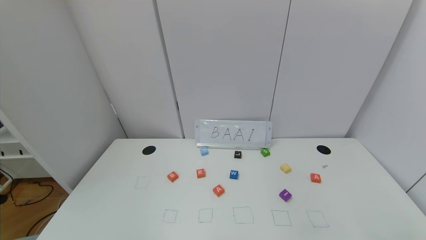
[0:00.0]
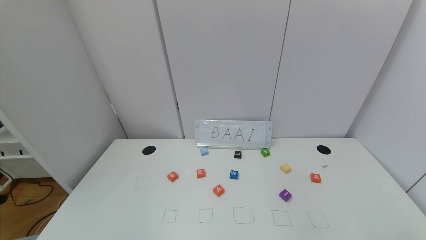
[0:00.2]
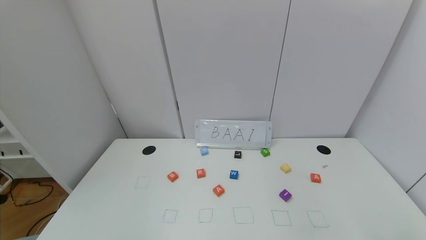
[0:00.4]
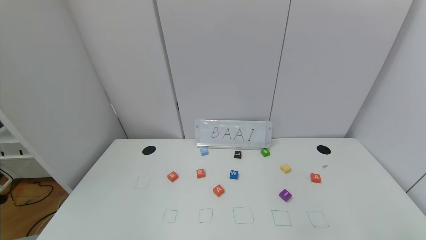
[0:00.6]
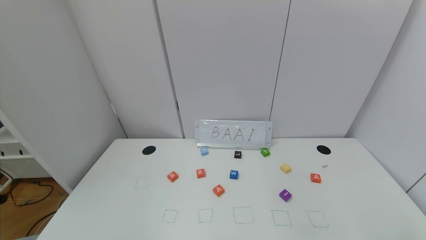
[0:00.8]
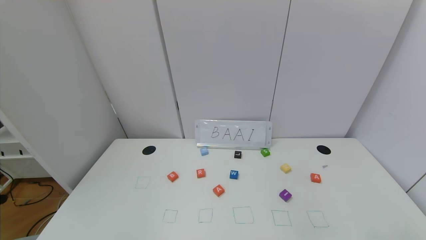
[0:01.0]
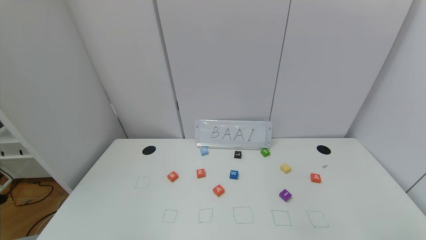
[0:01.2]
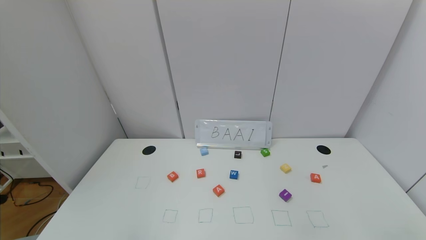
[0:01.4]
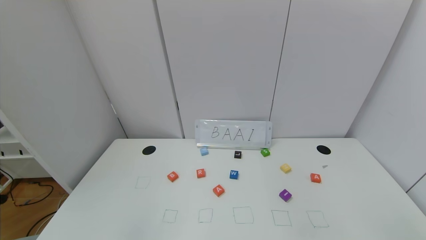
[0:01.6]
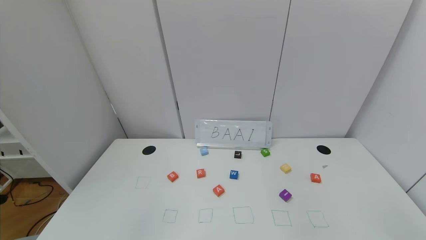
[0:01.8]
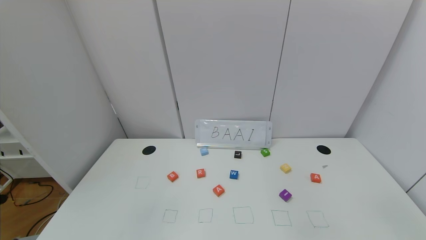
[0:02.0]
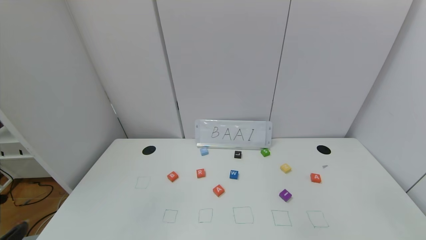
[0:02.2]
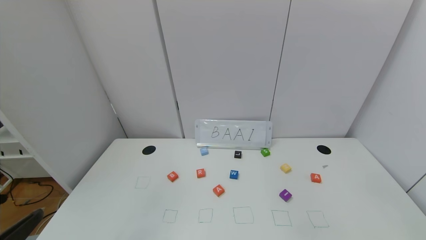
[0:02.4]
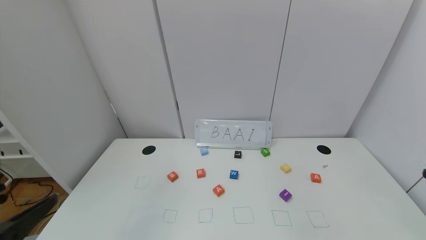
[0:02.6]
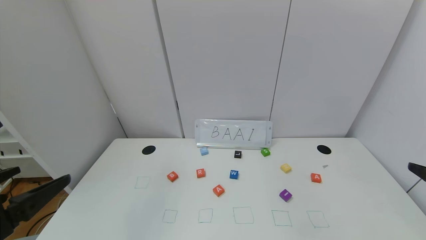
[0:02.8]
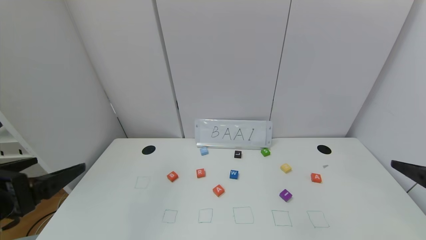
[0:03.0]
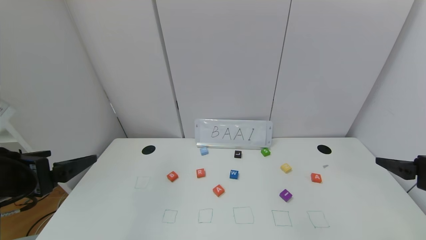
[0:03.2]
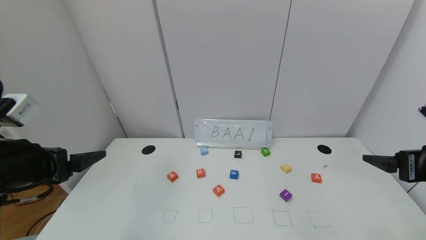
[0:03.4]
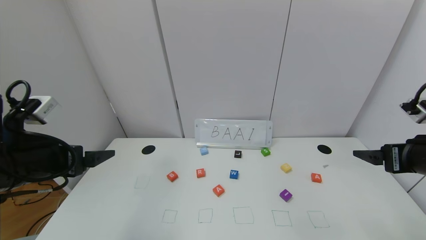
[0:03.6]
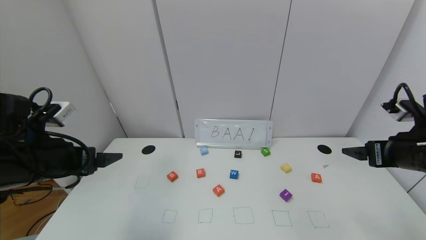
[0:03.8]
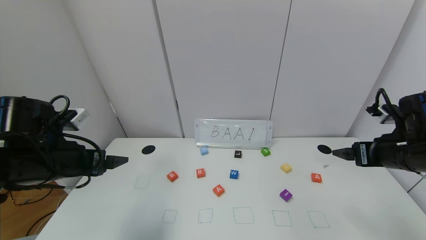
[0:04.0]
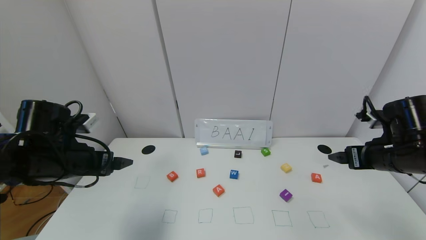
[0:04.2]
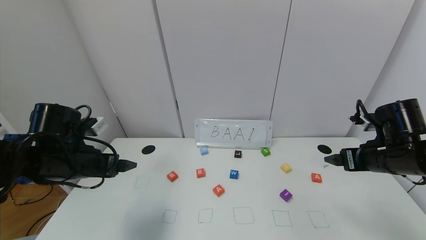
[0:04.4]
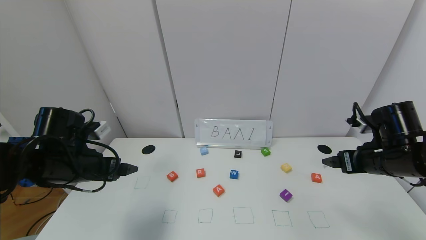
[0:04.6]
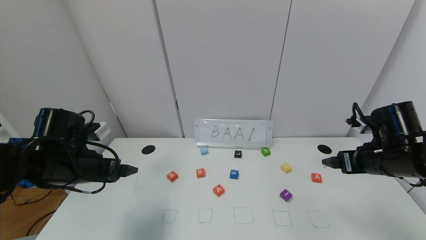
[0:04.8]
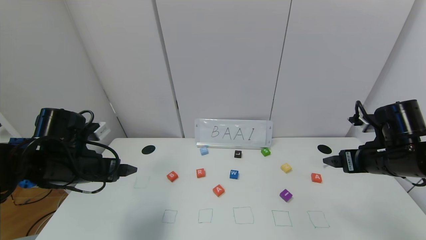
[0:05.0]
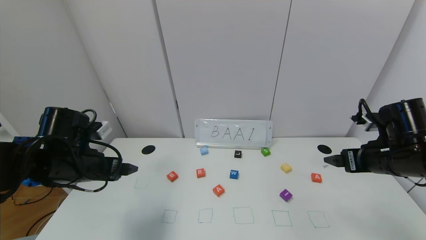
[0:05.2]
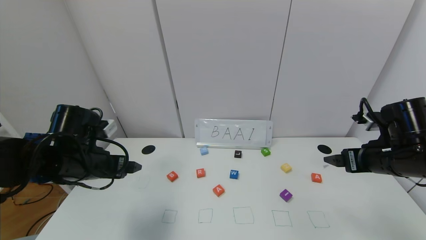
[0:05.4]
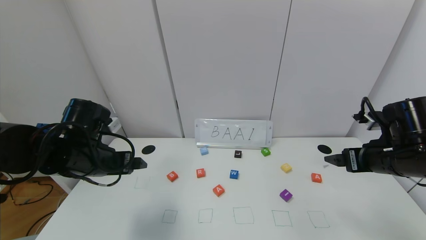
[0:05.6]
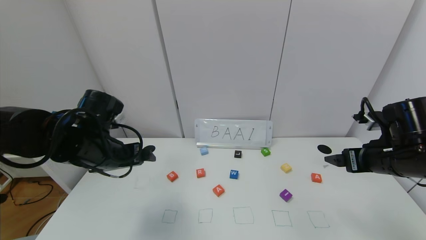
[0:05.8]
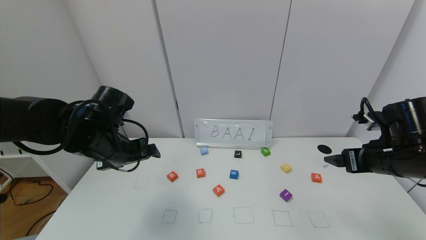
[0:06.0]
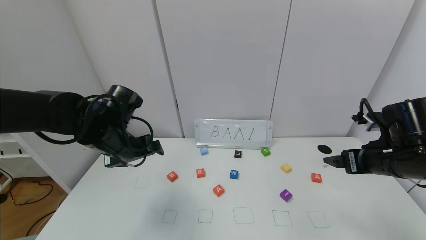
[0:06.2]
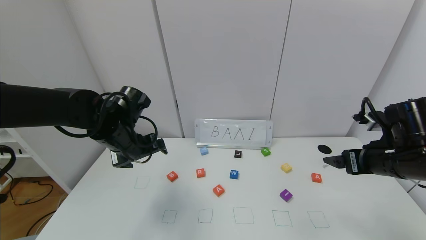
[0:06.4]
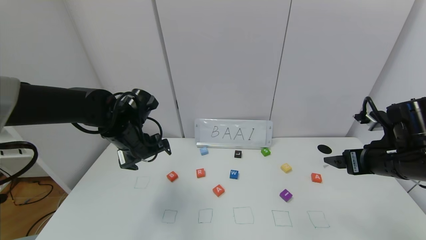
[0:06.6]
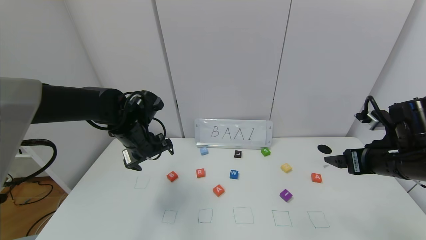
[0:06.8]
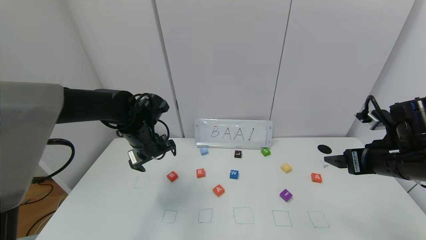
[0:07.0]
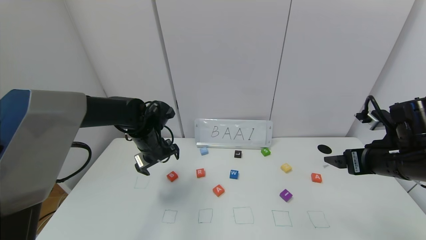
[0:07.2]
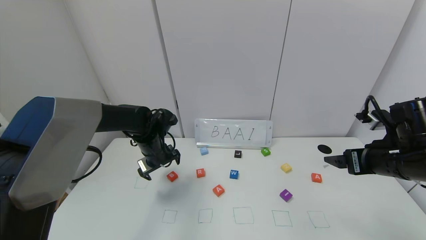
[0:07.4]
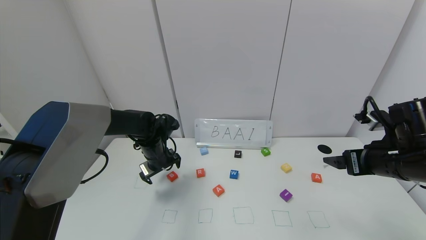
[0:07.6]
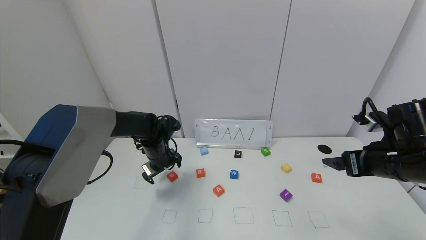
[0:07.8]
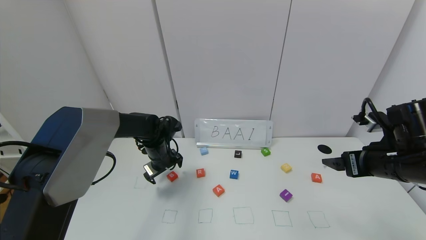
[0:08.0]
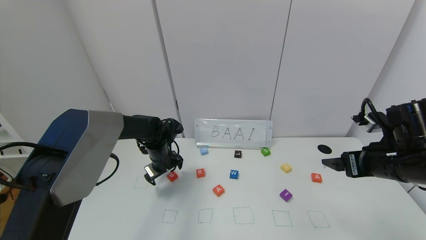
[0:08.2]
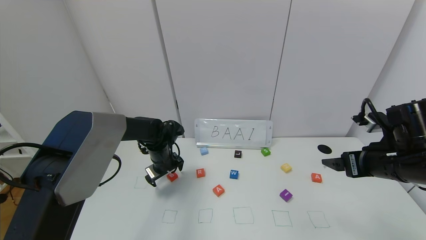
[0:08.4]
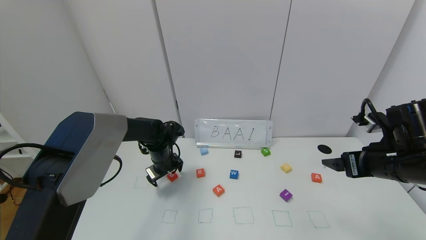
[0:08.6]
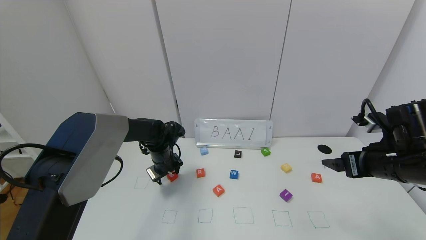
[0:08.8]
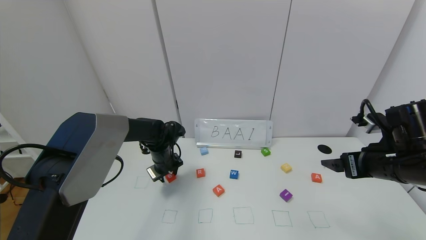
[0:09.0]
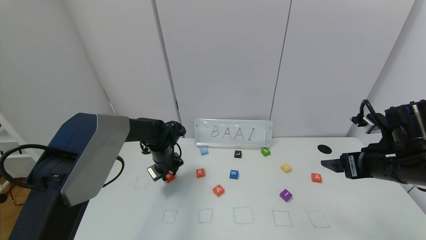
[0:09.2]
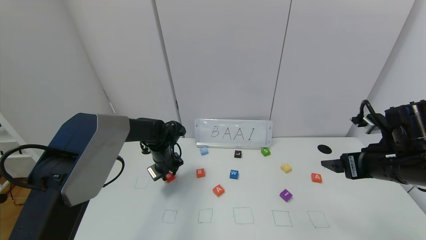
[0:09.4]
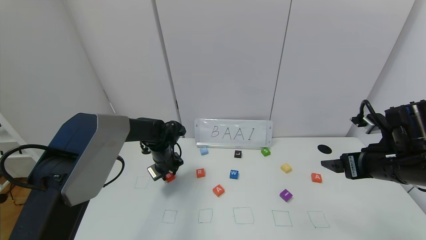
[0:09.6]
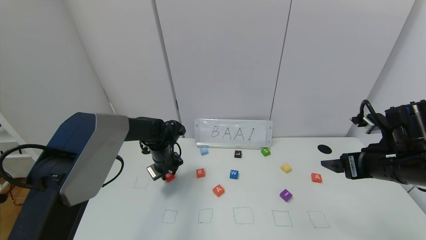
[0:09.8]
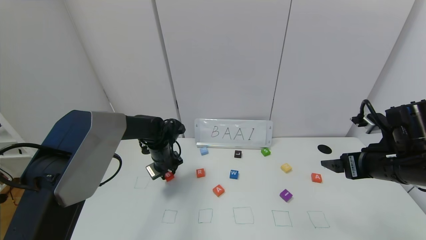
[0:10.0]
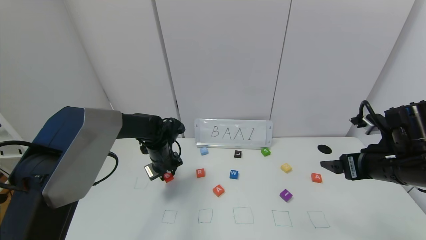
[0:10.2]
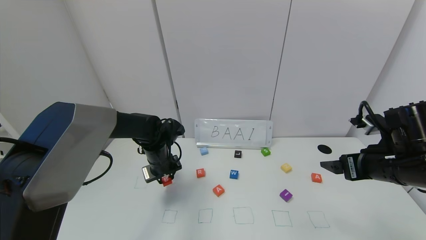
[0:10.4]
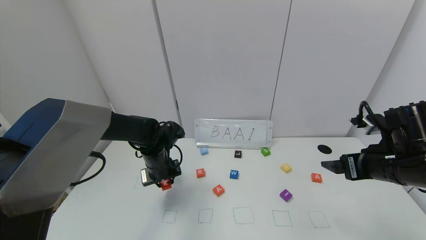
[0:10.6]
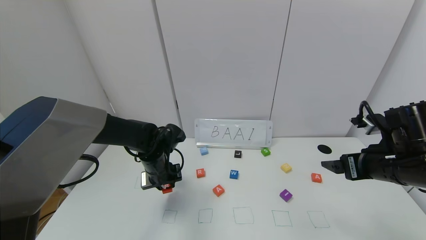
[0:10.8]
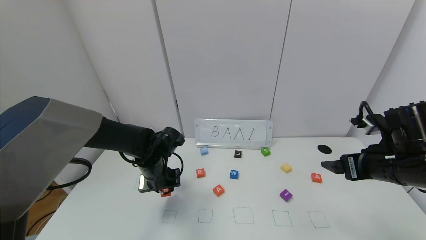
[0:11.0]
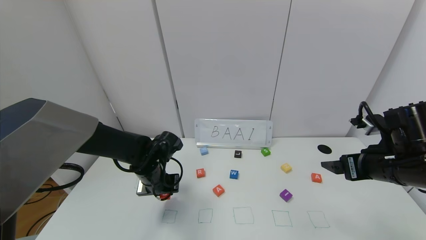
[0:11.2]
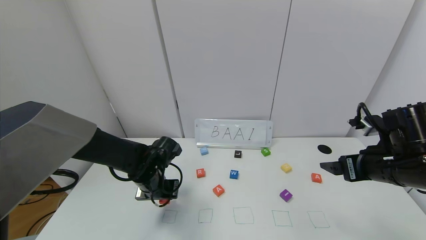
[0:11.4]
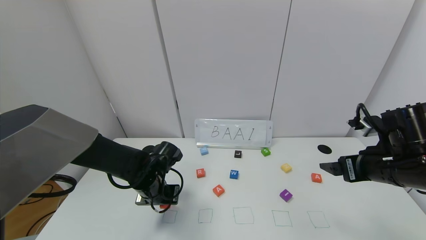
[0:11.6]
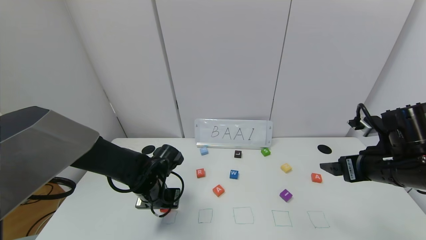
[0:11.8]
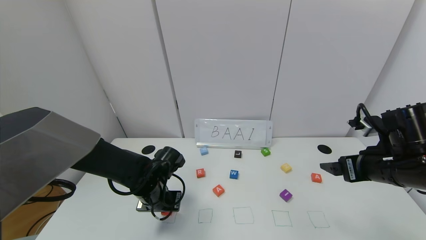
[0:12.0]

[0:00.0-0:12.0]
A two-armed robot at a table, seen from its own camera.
Task of the whole recording: use the gripper to find blocks with the letters b, a, a, and i on the table and arrange them into BAAI, then find r and N and turn the arranged baai into brian.
0:01.6 to 0:03.0: The left gripper heads forward and upward, covering about 15 cm.
0:03.0 to 0:04.4: The left gripper moves forward and downward, roughly 15 cm. The right gripper travels forward by roughly 15 cm.
0:04.4 to 0:06.0: The left gripper is displaced to the right by roughly 5 cm.
0:06.0 to 0:07.6: The left gripper moves forward and downward, approximately 15 cm.
0:07.6 to 0:09.0: The left gripper closes up.
0:09.0 to 0:10.4: The grippers stay close to where they were, moving slightly.
0:10.4 to 0:12.0: The left gripper moves backward, about 10 cm.

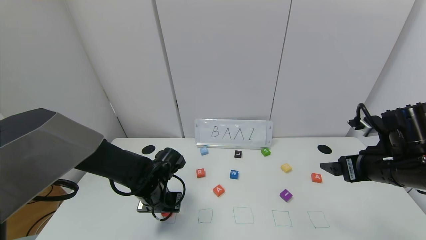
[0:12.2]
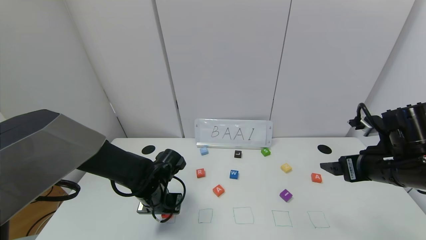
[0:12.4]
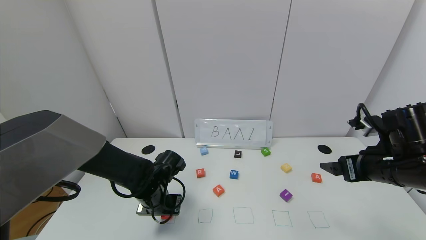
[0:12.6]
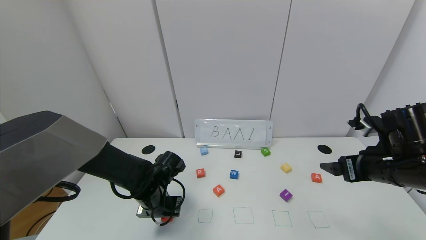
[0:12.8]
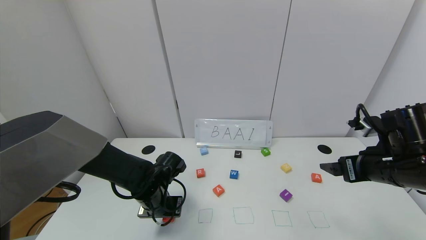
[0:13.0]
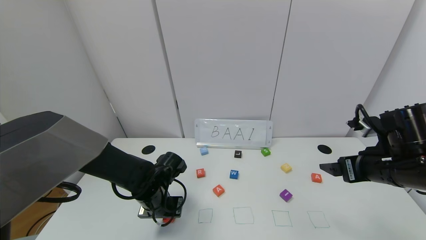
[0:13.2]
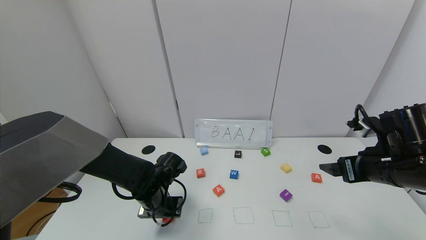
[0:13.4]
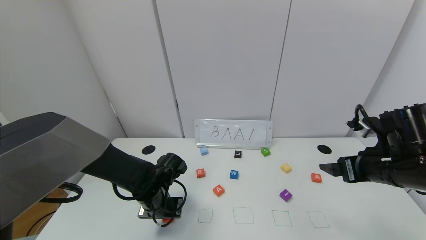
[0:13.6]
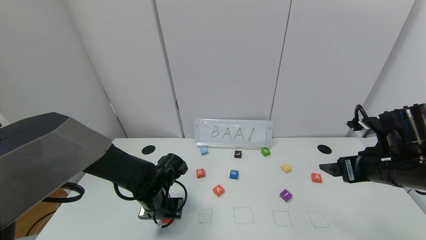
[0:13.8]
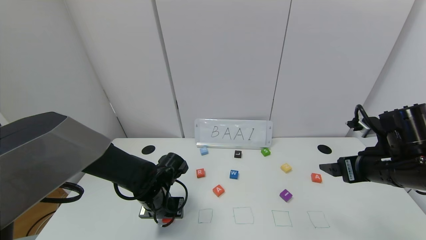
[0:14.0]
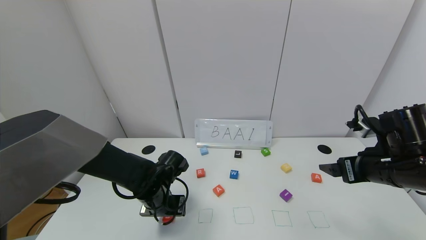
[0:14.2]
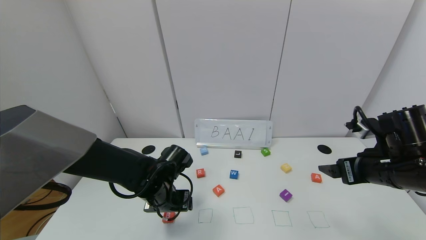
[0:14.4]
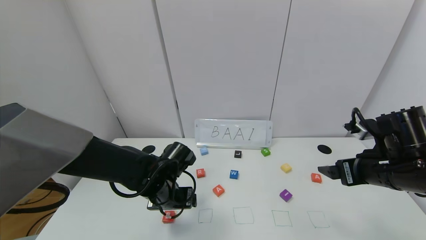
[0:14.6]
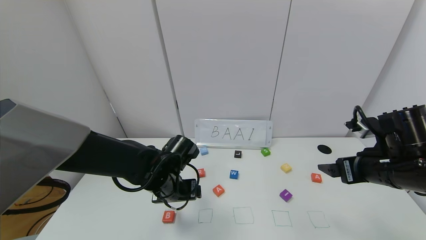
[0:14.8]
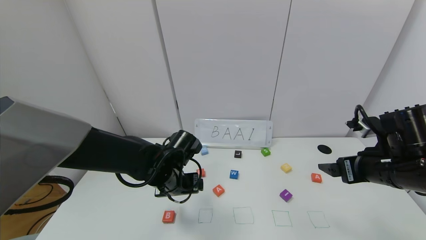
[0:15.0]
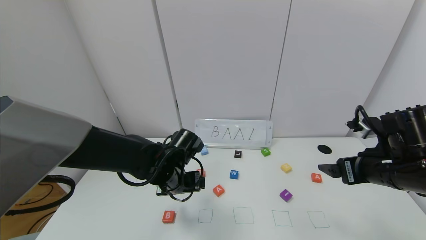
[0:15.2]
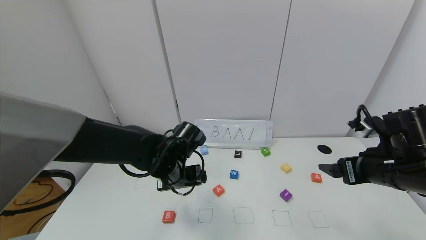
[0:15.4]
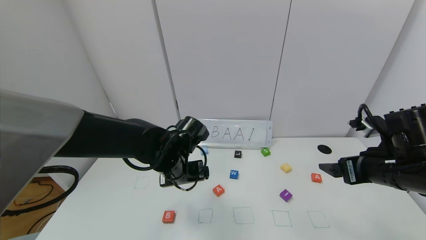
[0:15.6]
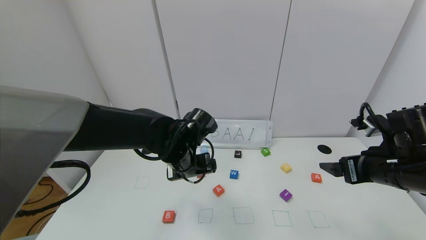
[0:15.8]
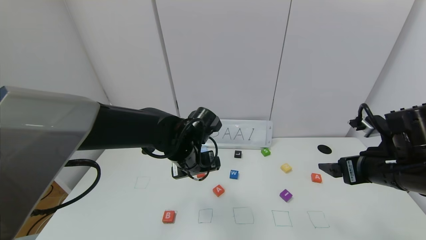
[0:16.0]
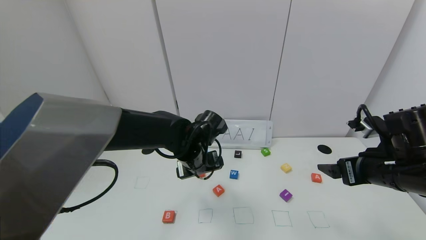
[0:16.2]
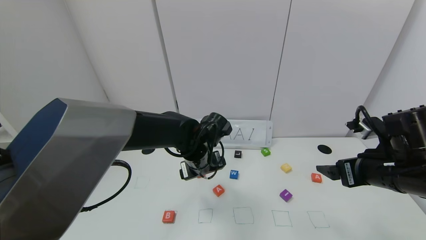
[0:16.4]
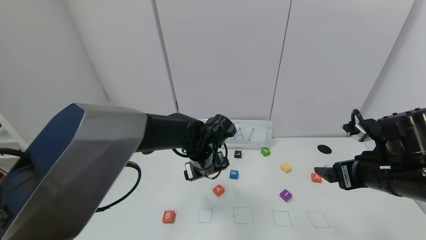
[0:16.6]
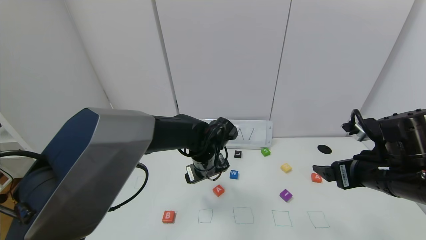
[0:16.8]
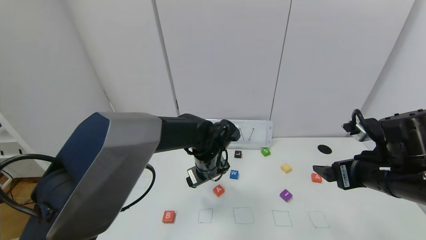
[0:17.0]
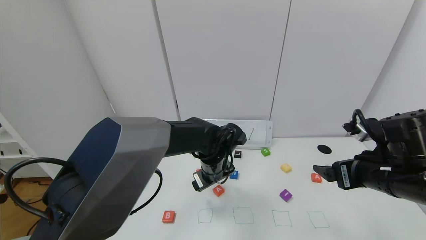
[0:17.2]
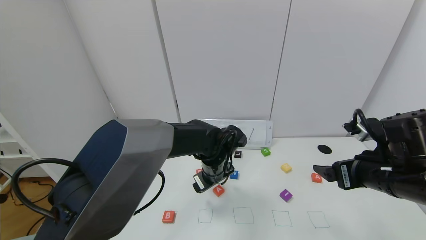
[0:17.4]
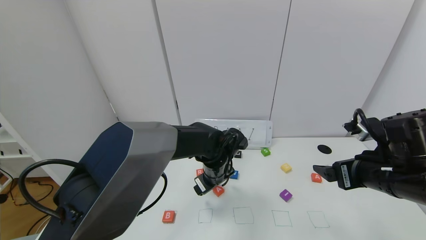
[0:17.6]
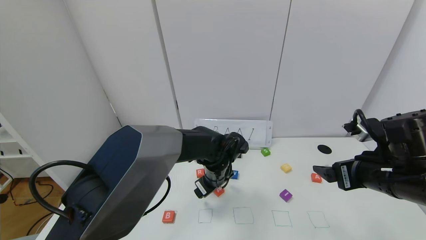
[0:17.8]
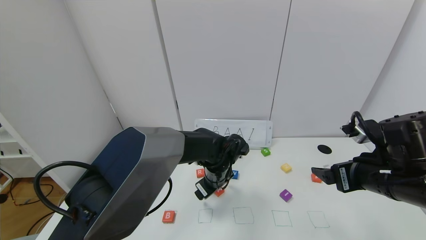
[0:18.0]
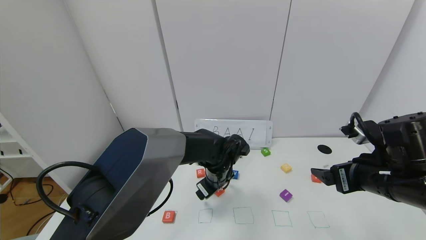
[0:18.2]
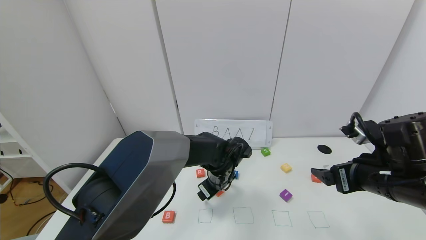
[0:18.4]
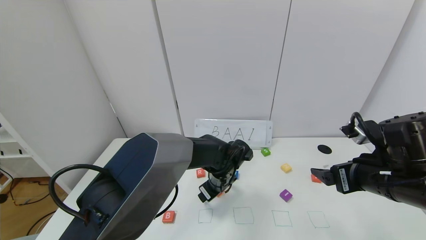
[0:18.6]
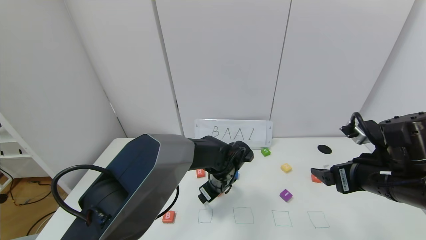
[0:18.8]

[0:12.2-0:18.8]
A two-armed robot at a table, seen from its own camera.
Task of the whole recording: use the gripper to find blocks with the letters b, a, a, and i on the table and arrange them into BAAI, then find r and N and turn the arranged baai into brian.
0:12.2 to 0:13.8: The left gripper opens up.
0:13.8 to 0:15.4: The left gripper is displaced upward and to the right by roughly 10 cm, and opens.
0:15.4 to 0:17.2: The left gripper heads to the right, covering some 10 cm.
0:17.2 to 0:18.8: The left gripper is displaced downward by some 5 cm.
